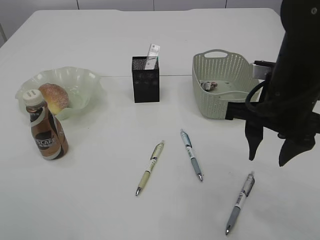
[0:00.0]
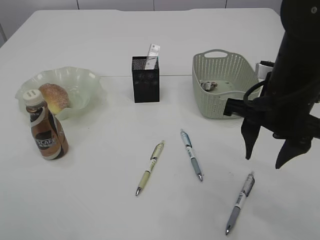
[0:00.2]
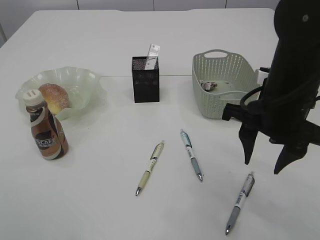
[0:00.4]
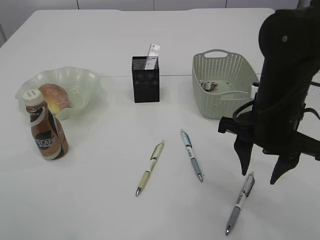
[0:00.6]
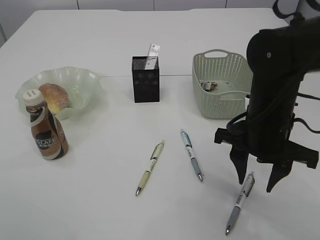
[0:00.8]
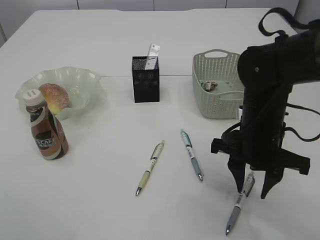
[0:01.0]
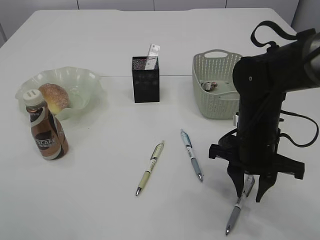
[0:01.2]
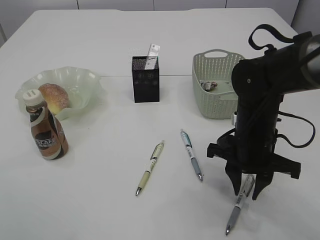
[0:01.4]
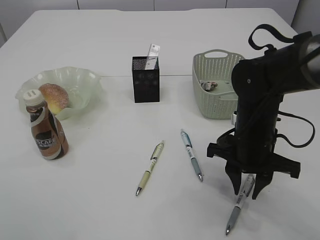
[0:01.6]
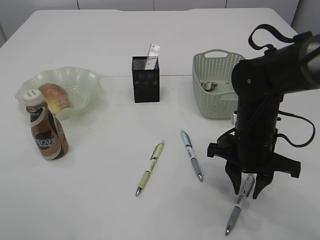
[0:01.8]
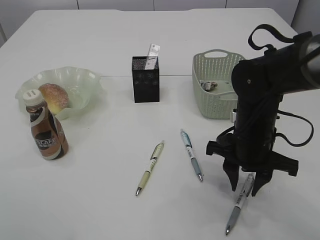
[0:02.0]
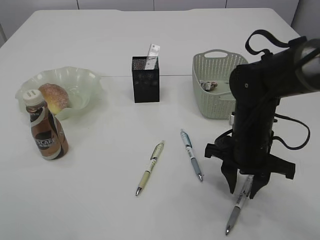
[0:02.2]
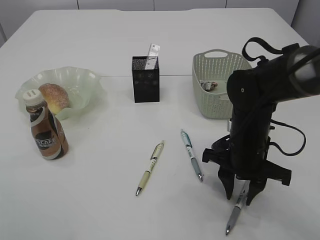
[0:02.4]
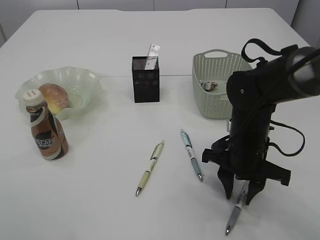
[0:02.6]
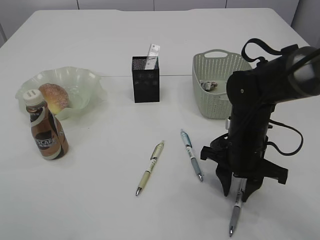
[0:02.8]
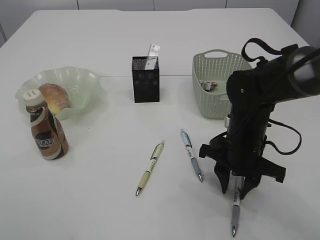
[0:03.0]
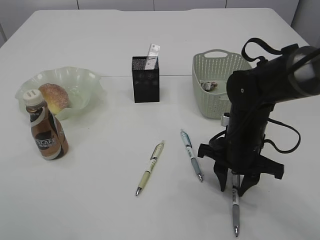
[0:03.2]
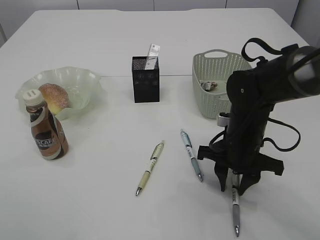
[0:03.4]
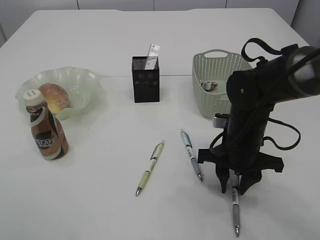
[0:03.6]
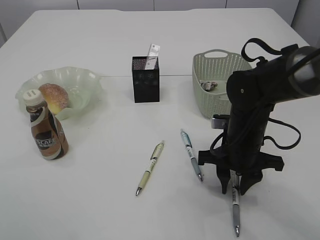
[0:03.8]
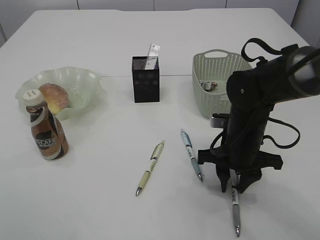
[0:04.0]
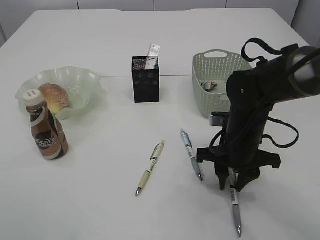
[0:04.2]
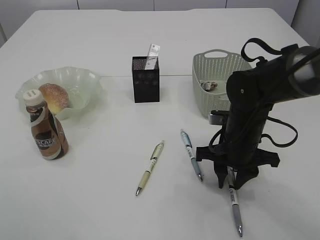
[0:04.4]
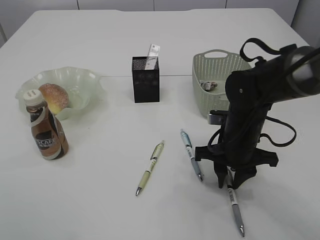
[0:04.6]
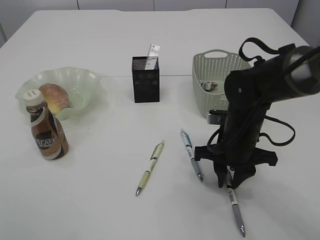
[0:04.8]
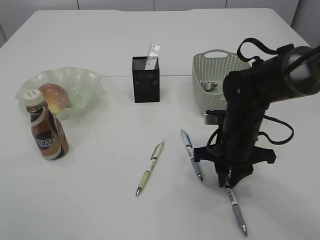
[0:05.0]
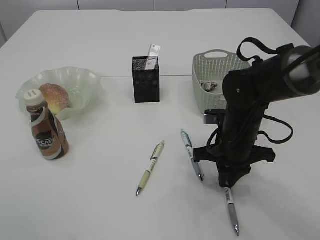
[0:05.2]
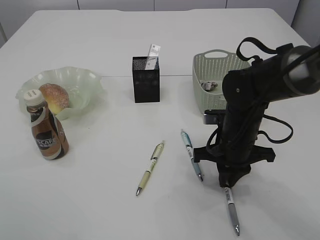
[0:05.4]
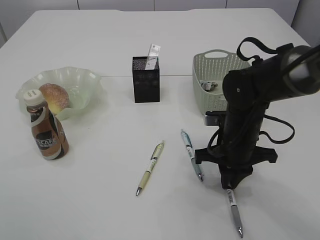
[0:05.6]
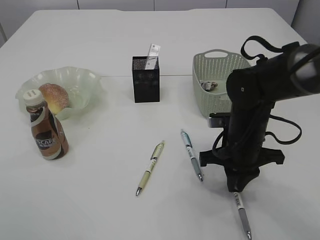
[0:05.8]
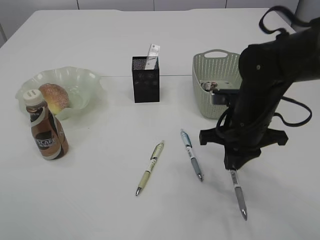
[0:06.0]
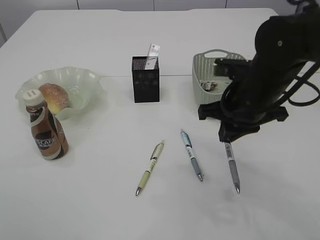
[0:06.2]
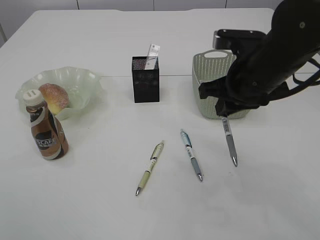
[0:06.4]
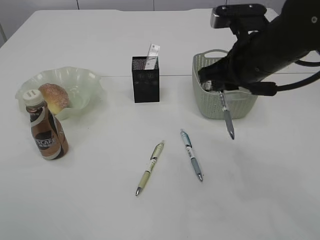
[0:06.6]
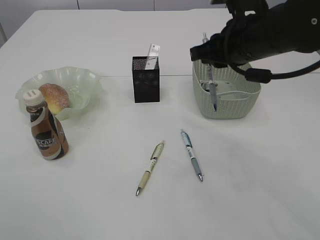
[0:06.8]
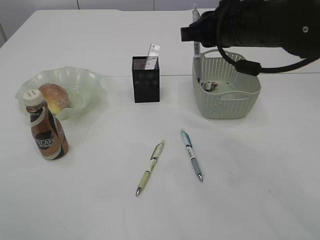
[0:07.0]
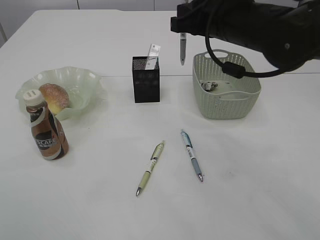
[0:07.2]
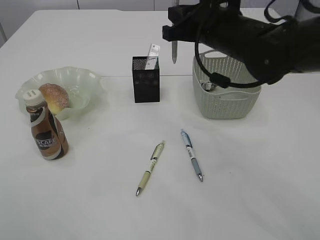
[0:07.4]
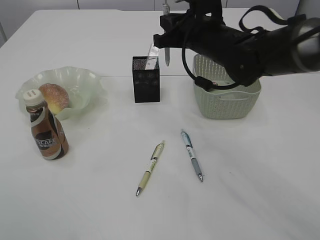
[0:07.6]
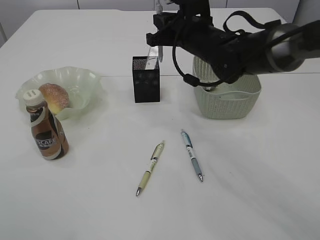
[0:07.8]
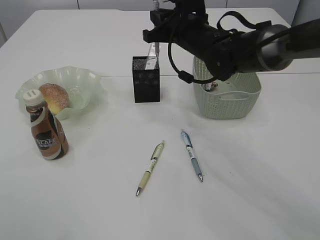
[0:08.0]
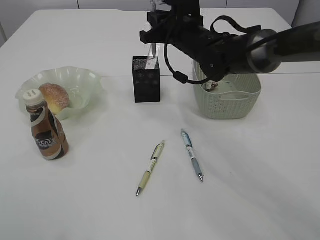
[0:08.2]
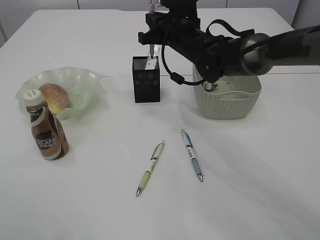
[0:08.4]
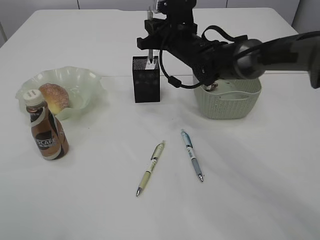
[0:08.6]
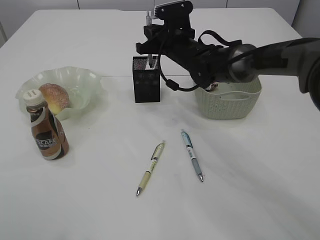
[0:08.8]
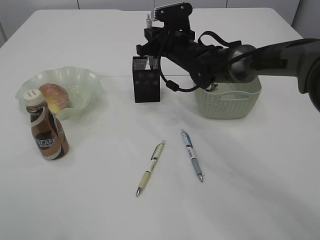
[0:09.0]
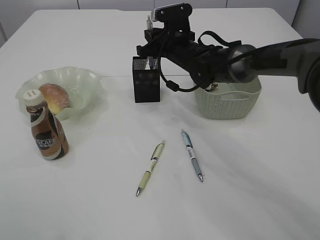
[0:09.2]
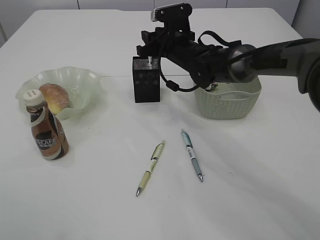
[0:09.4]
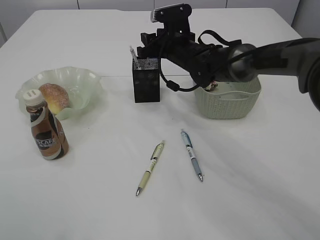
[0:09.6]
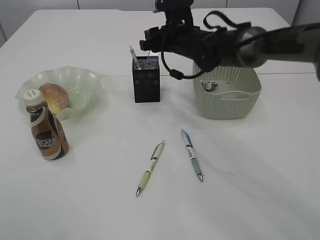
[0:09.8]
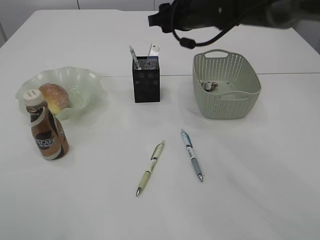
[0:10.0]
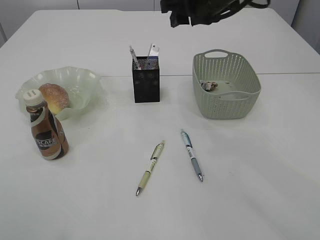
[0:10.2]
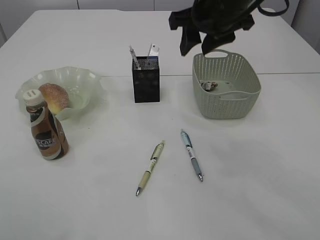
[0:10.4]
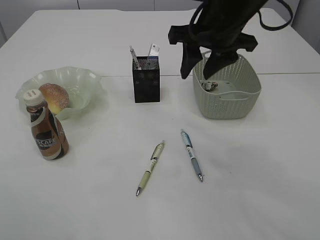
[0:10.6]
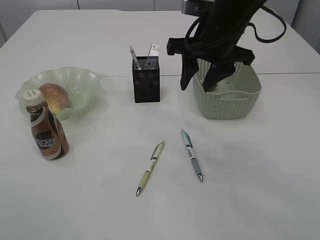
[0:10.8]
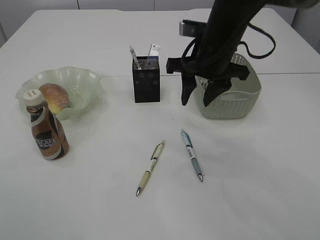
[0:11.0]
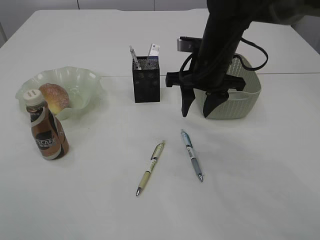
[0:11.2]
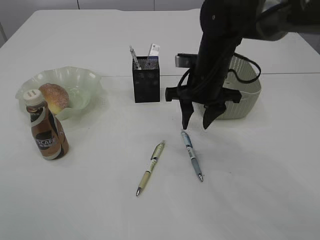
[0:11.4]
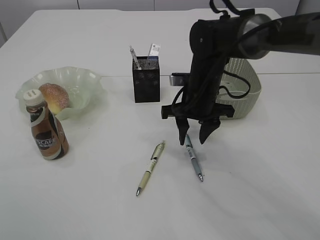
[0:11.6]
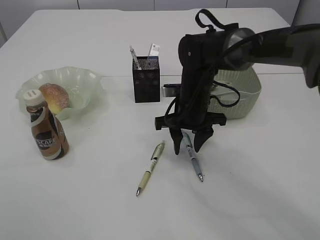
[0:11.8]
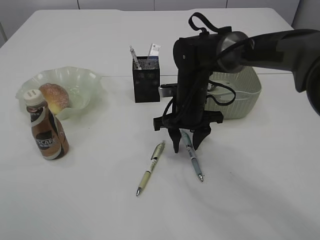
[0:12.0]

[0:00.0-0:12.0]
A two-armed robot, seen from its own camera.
Step, 0:00.0 to 0:06.2: Pick up the pen with right arm.
Step, 0:06.4 to 0:09.8: Place the pen into the pen holder.
0:00.0 to 0:01.6: The right gripper travels downward by about 10 cm.
0:01.6 to 0:03.0: The grippers stay close to where they were, moving slightly.
0:04.4 to 0:06.0: The right gripper closes.
0:06.0 to 0:07.6: The right gripper shifts roughly 15 cm forward and upward.
0:07.6 to 0:09.0: The right gripper moves forward and downward, roughly 10 cm.
0:09.0 to 0:10.4: The right gripper goes roughly 20 cm upward and backward, and opens.
0:10.4 to 0:12.0: The right gripper shifts approximately 20 cm downward.

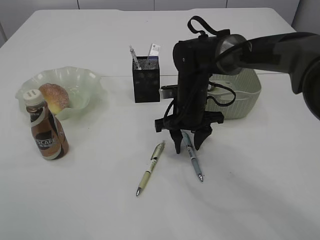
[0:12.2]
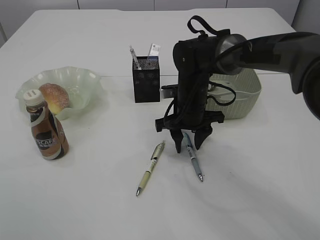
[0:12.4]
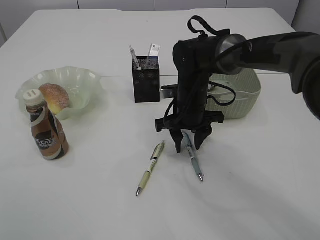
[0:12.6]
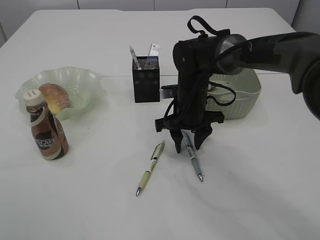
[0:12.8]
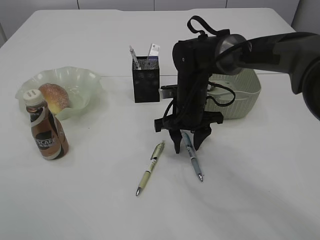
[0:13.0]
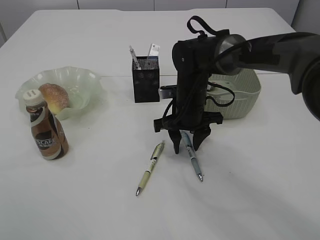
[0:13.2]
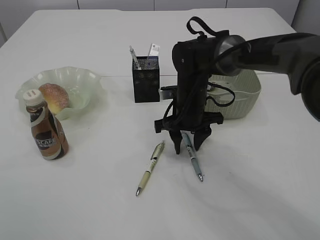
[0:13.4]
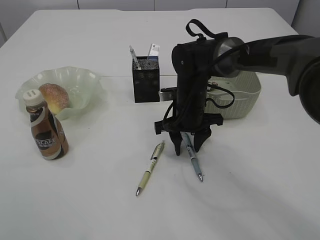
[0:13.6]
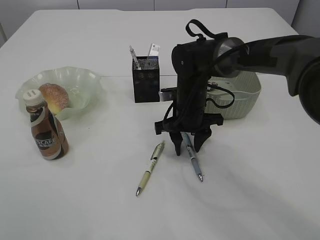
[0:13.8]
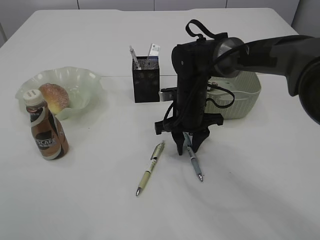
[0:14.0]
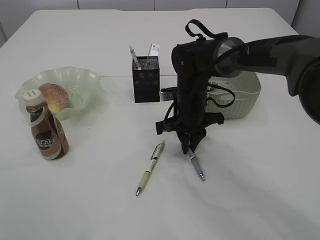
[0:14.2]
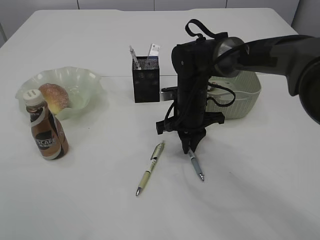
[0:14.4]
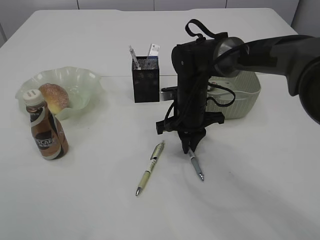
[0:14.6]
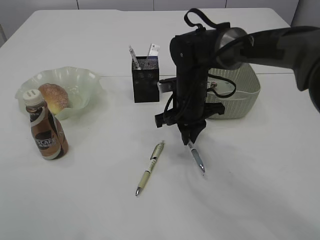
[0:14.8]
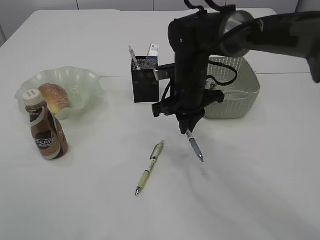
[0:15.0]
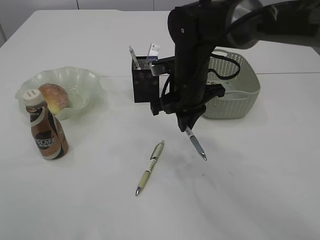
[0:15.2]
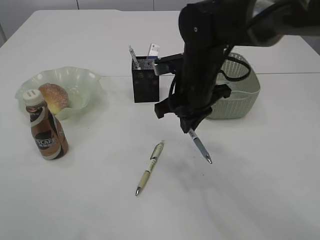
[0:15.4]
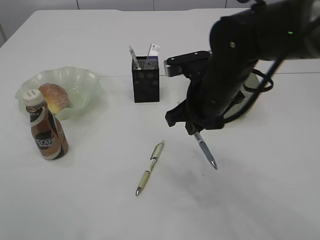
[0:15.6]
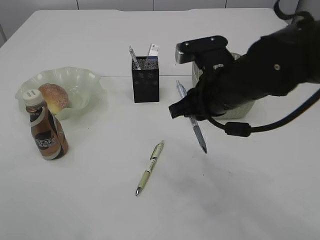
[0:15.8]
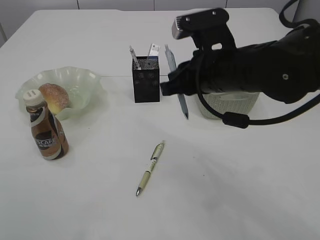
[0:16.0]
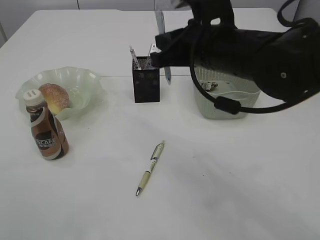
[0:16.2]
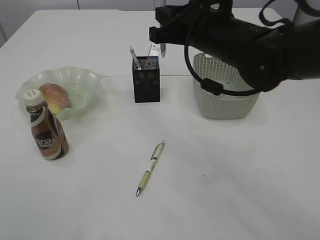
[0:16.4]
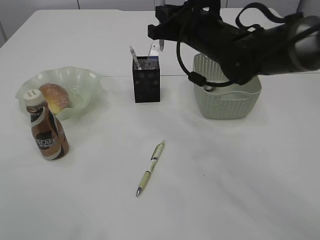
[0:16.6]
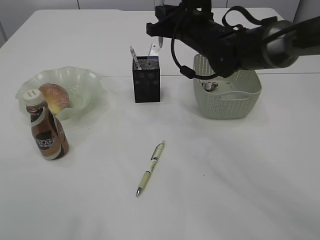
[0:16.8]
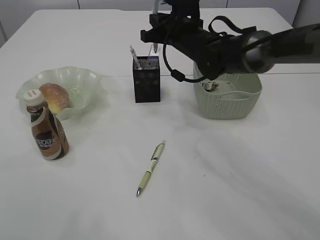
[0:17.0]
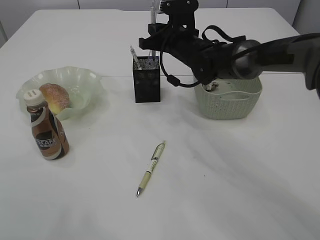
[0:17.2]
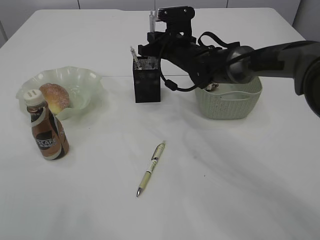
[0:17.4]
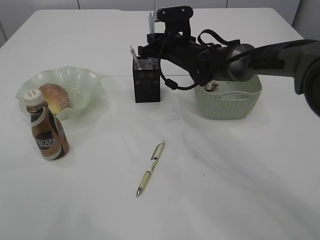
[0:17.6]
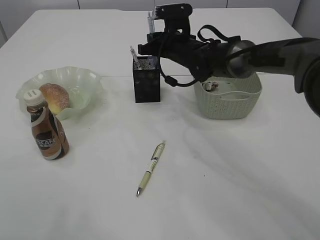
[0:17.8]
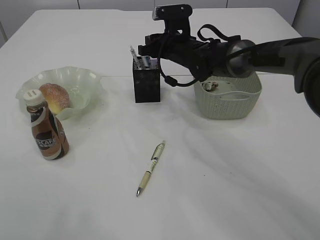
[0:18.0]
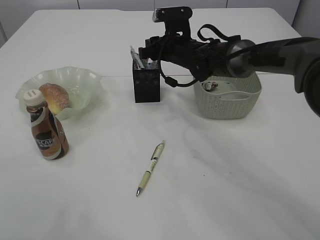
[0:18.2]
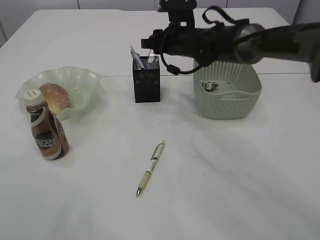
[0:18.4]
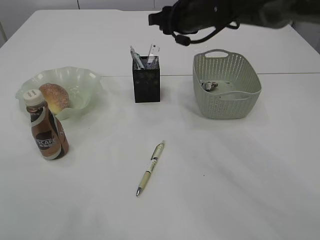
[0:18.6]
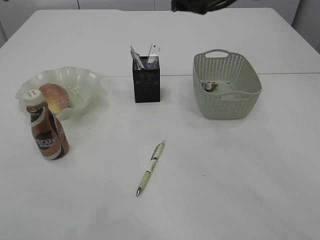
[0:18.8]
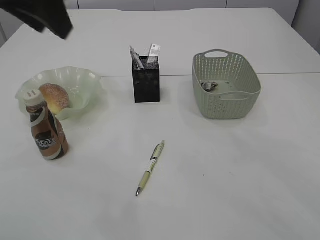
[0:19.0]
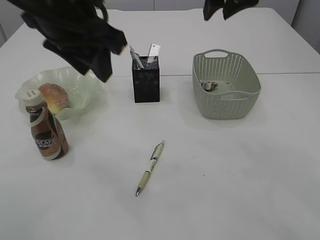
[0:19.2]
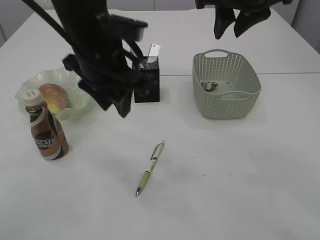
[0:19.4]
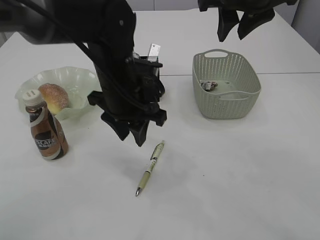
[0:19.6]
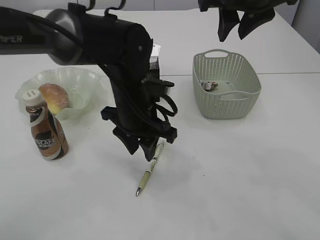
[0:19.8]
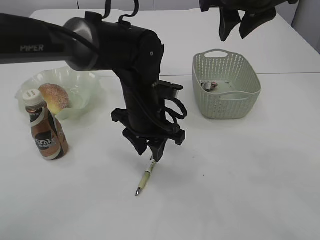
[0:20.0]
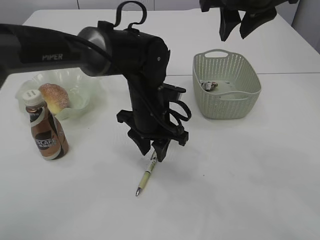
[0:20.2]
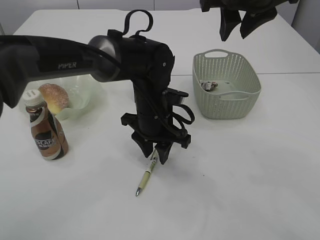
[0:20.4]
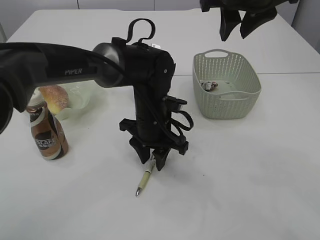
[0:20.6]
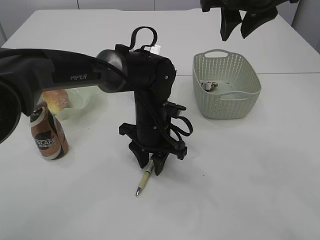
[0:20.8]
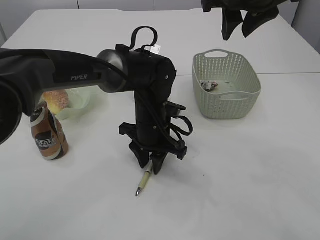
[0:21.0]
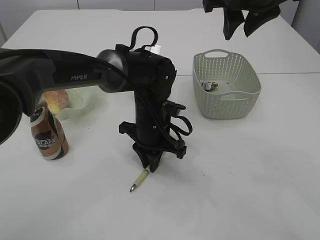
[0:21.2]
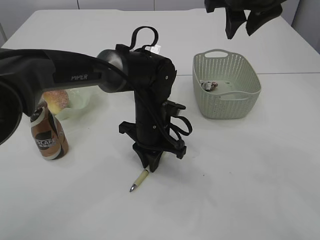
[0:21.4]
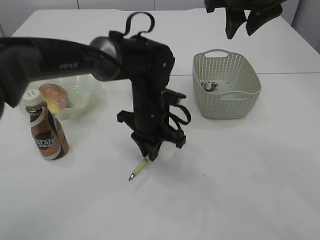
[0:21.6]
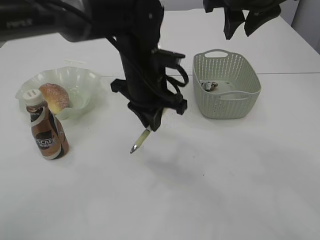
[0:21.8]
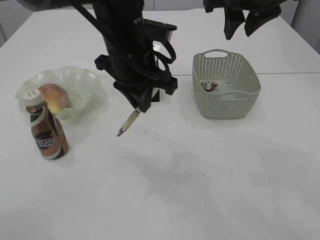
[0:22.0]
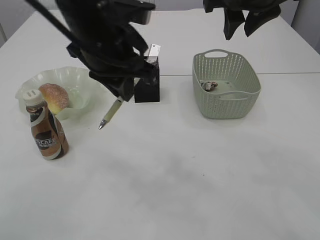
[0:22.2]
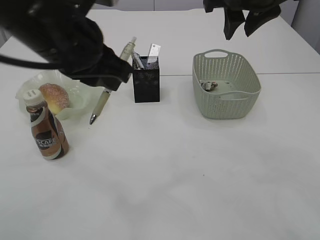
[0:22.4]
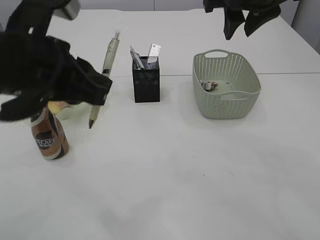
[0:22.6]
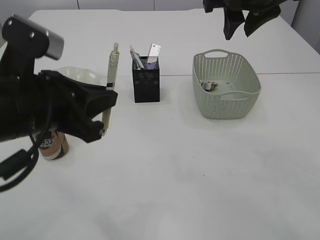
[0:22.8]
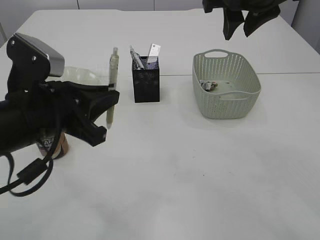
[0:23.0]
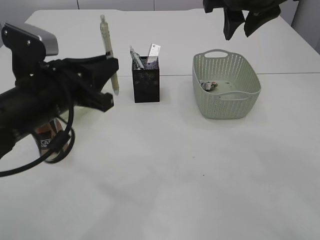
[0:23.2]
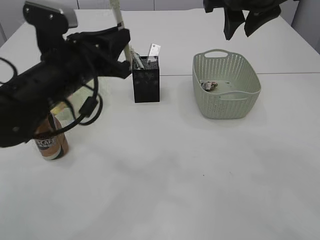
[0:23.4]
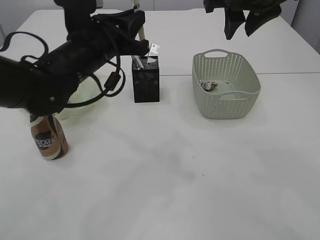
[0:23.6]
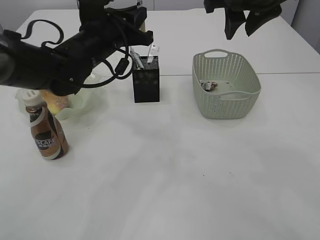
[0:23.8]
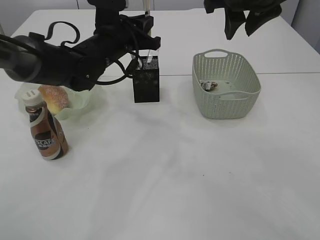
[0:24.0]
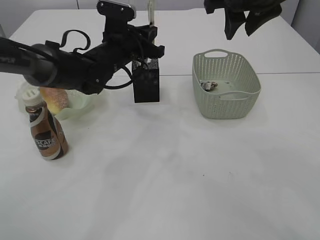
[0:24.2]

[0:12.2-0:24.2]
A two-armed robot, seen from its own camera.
Step, 0:12.2 to 0:15.4: Pick up the pen with right arm.
Step, 0:15.6 to 0:18.4: Place the pen into the pen holder.
Step, 0:18.6 to 0:21.8: Pick up the pen with left arm.
0:12.2 to 0:13.8: Both grippers stay about where they are.
0:13.8 to 0:15.2: The right gripper moves upward, about 5 cm, and closes.
0:15.2 to 0:16.6: The right gripper shifts about 5 cm upward, and reaches some 10 cm backward, then returns.
0:16.6 to 0:18.2: The right gripper moves forward and downward, about 10 cm, and opens.
0:18.2 to 0:19.8: The right gripper travels upward and backward by approximately 25 cm. The left gripper shifts roughly 35 cm downward and to the right.
0:19.8 to 0:21.2: The left gripper moves downward, roughly 5 cm, and closes its fingers.
0:21.2 to 0:22.6: The left gripper goes about 25 cm upward, backward and to the left.
0:22.6 to 0:24.2: The left gripper moves forward and downward, some 25 cm.
